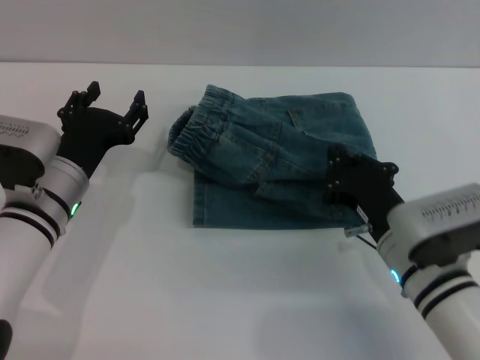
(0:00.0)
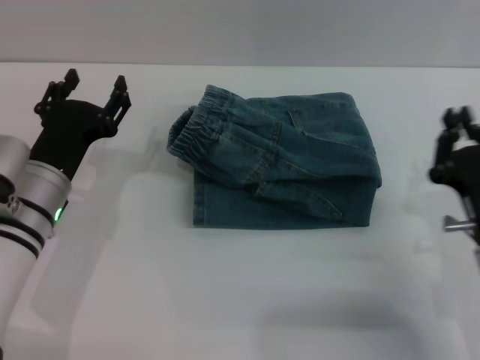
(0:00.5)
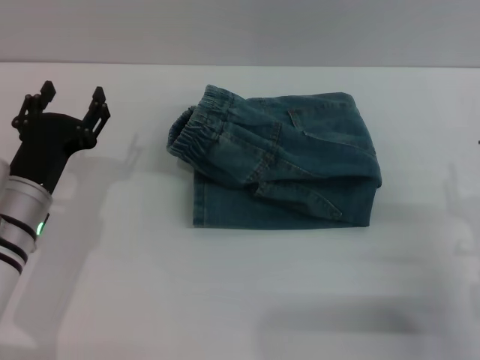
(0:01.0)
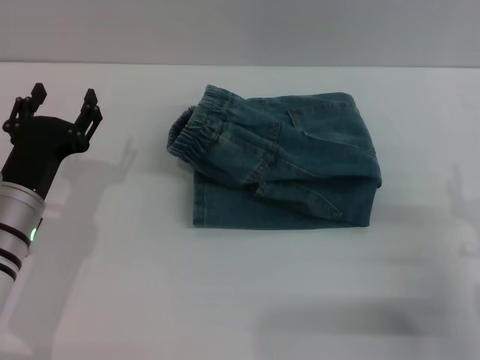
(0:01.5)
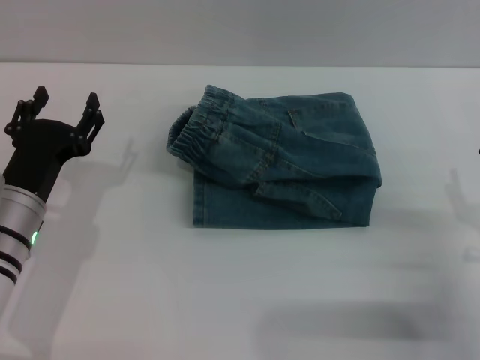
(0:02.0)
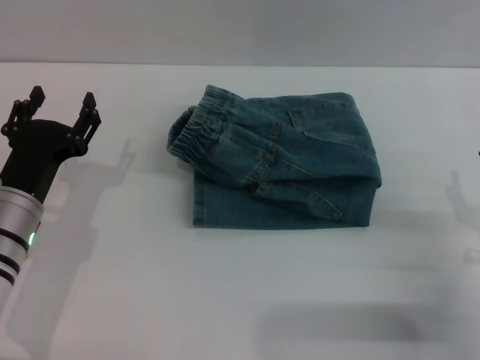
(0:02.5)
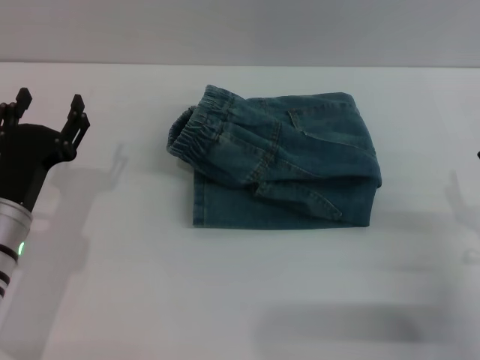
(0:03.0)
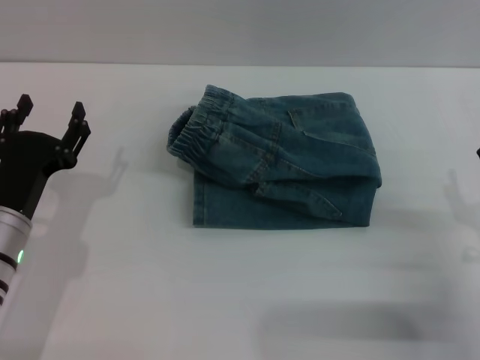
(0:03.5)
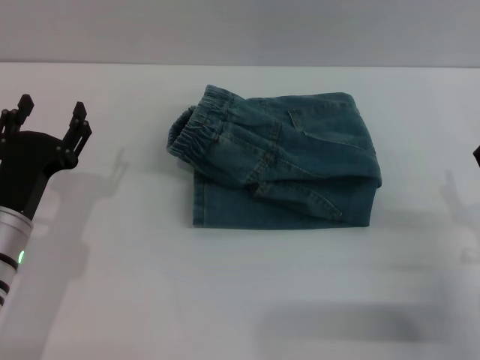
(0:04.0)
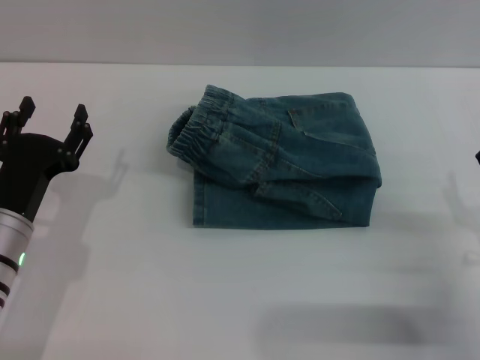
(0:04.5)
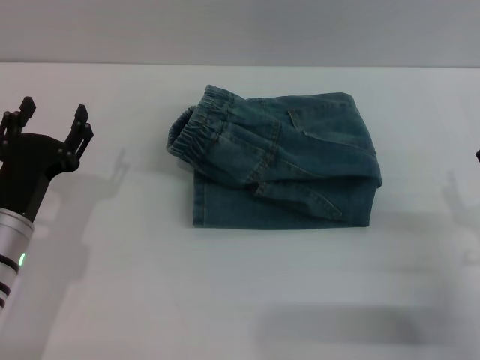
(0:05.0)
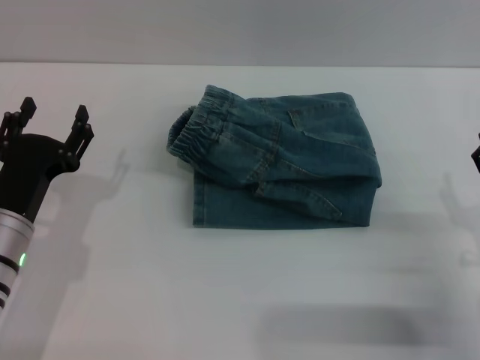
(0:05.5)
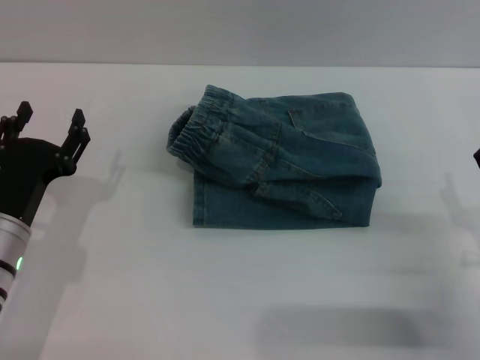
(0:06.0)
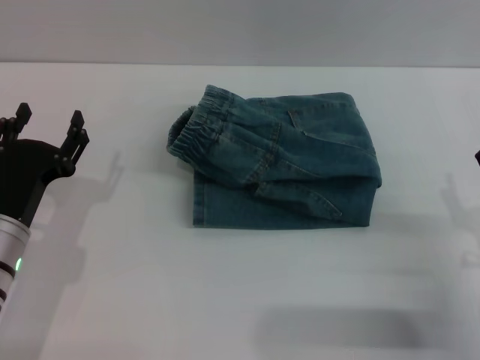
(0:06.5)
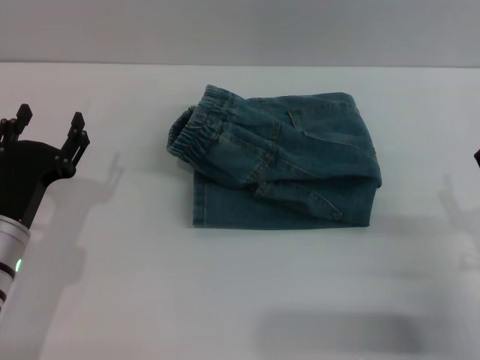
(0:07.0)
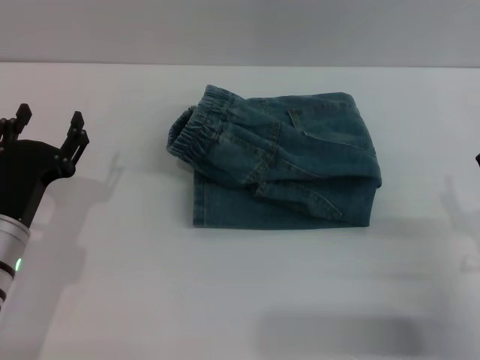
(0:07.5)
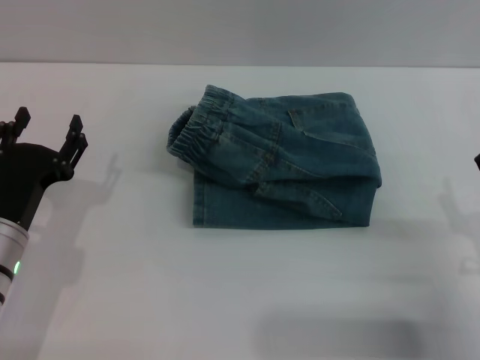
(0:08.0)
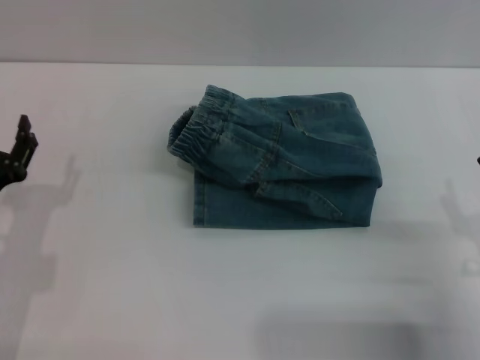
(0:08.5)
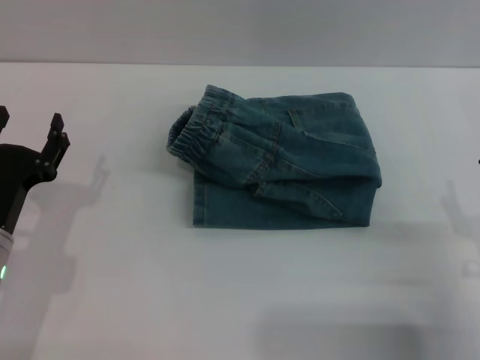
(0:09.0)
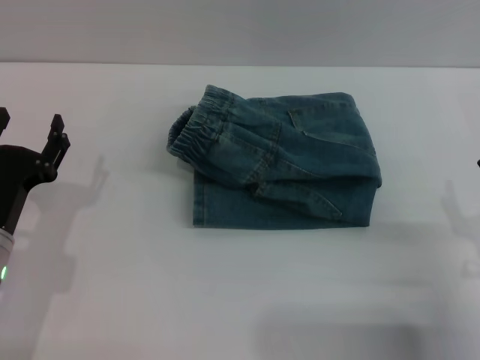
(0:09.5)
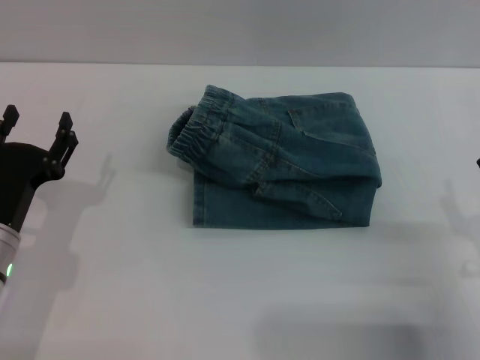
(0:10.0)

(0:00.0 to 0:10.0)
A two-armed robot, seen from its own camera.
0:00.0 - 0:02.0: The right gripper travels to the right by roughly 10 cm, and opens.
0:02.0 - 0:04.0: There are only small adjustments of the grippers.
0:04.0 - 0:06.0: The two grippers keep their place.
0:06.0 - 0:08.0: Both grippers stay about where they are.
0:08.0 - 0:10.0: The grippers move only a little.

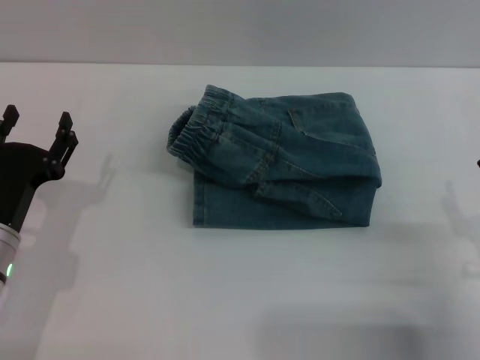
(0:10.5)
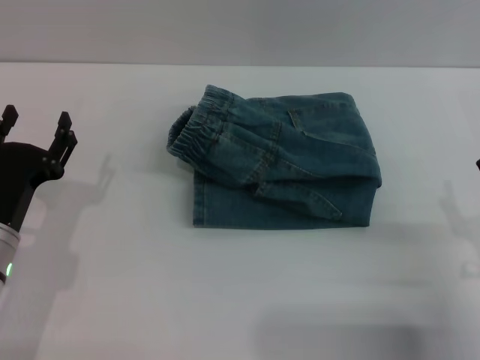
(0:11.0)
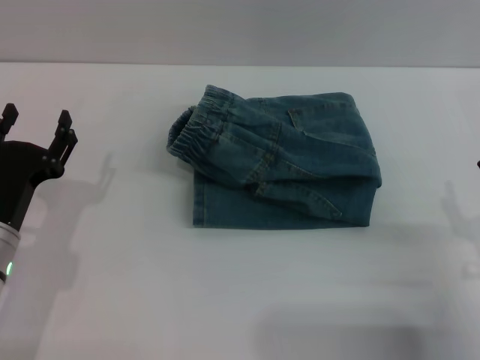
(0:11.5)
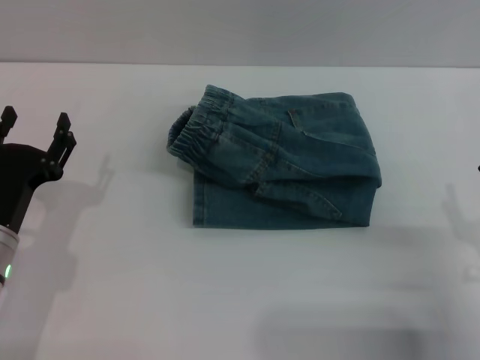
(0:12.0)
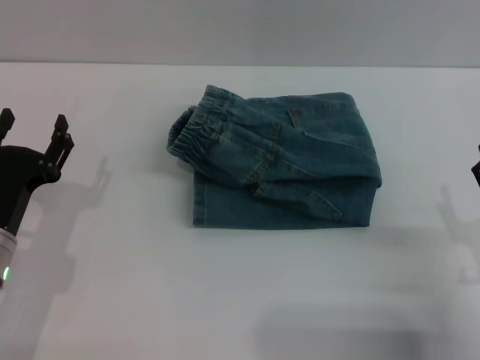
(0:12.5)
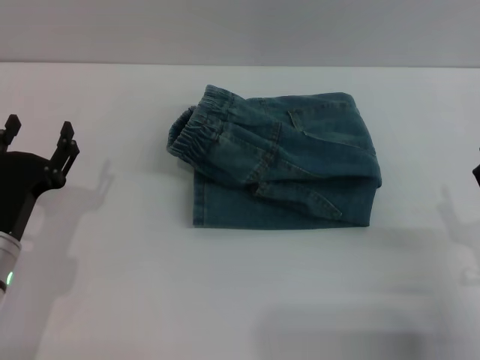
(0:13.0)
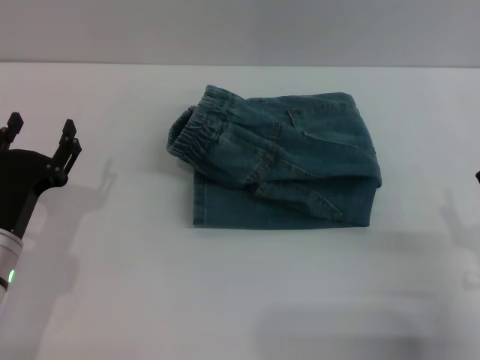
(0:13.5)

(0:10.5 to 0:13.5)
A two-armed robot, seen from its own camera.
0:10.5 - 0:13.5: Both grippers stay about where they are.

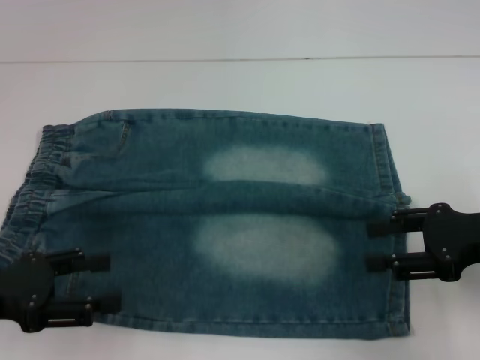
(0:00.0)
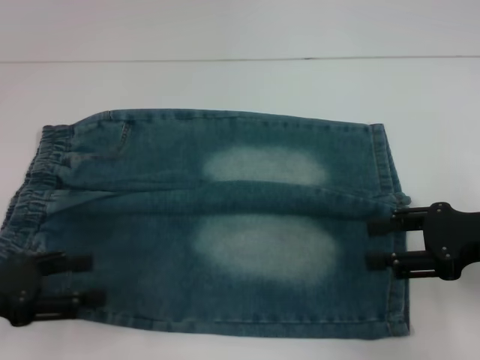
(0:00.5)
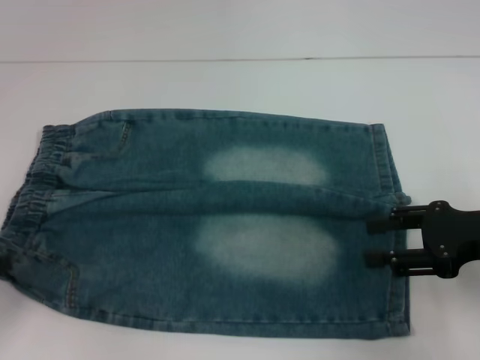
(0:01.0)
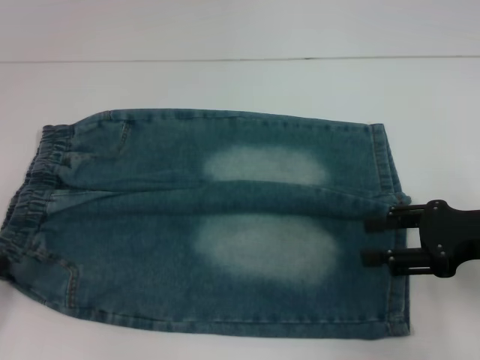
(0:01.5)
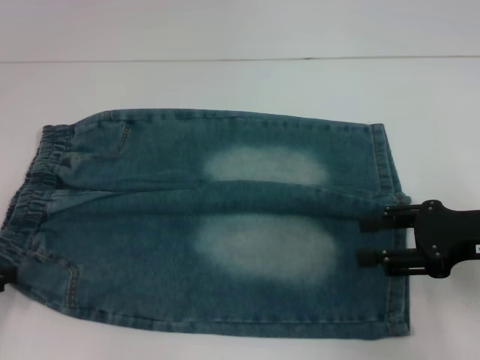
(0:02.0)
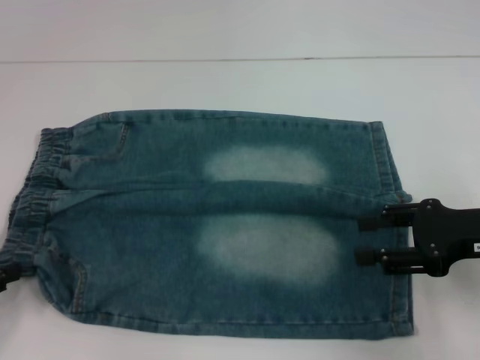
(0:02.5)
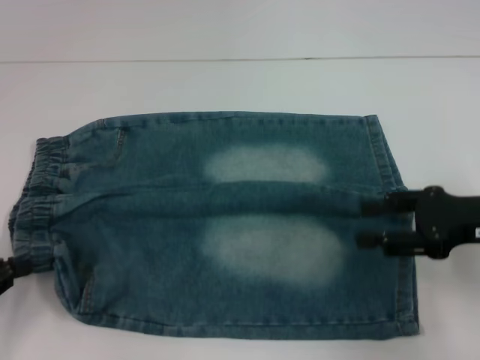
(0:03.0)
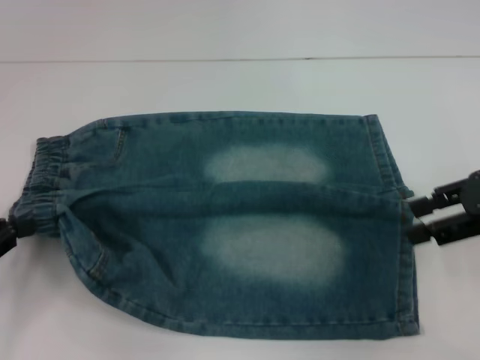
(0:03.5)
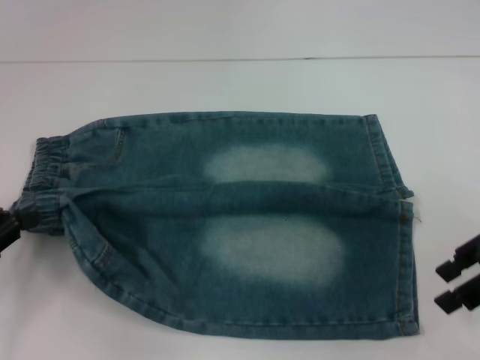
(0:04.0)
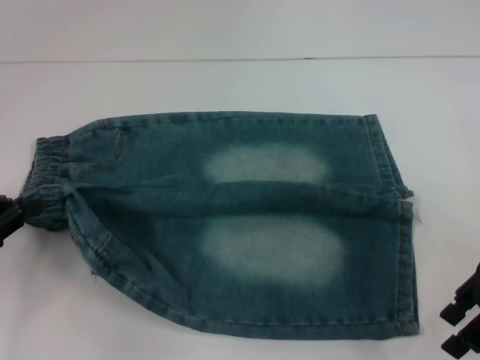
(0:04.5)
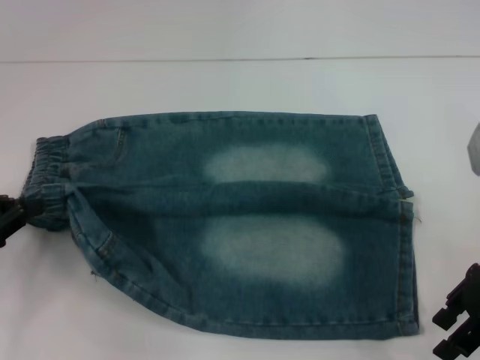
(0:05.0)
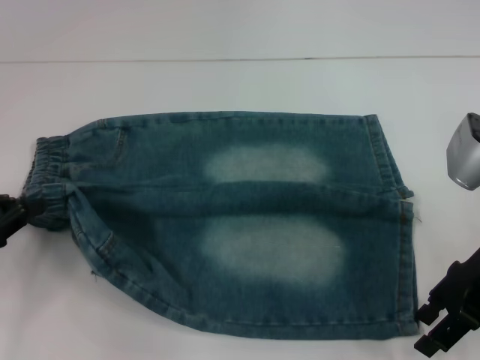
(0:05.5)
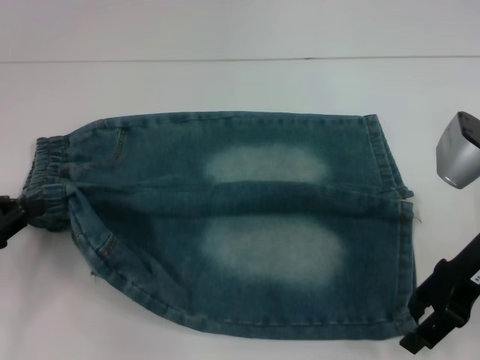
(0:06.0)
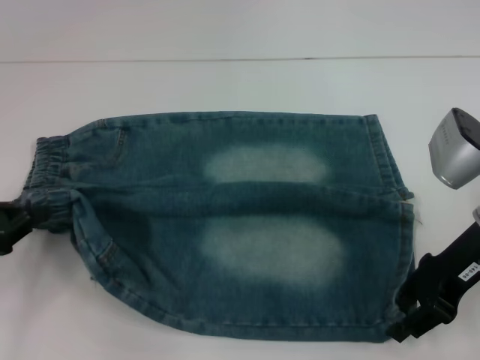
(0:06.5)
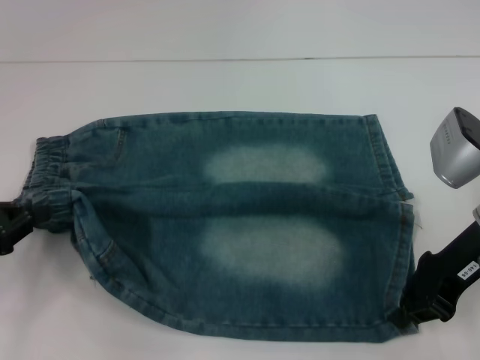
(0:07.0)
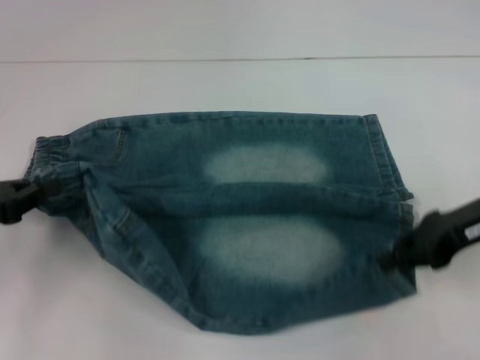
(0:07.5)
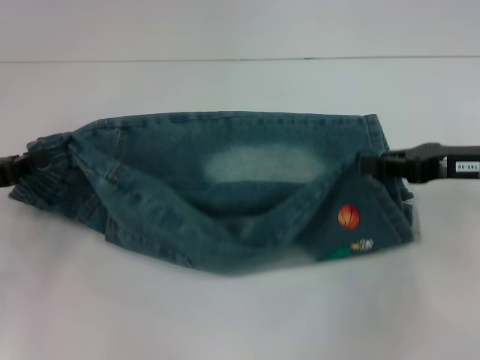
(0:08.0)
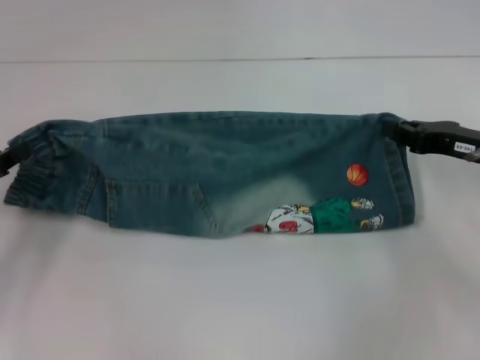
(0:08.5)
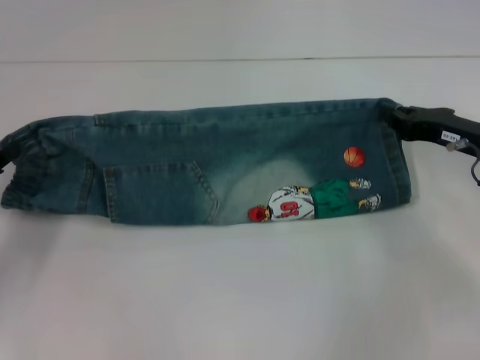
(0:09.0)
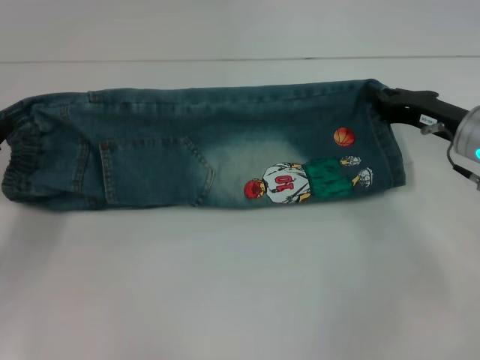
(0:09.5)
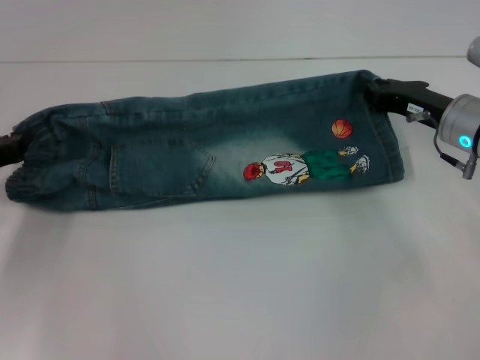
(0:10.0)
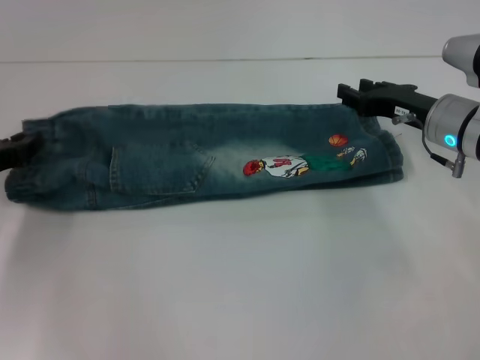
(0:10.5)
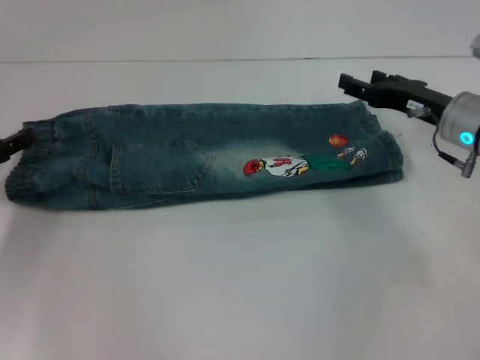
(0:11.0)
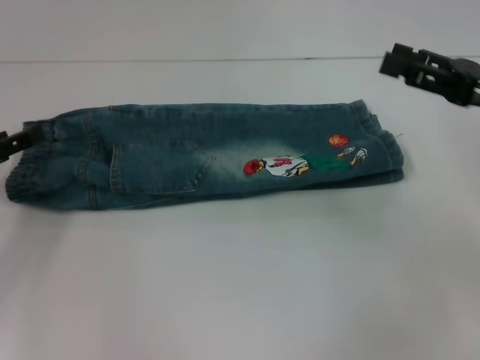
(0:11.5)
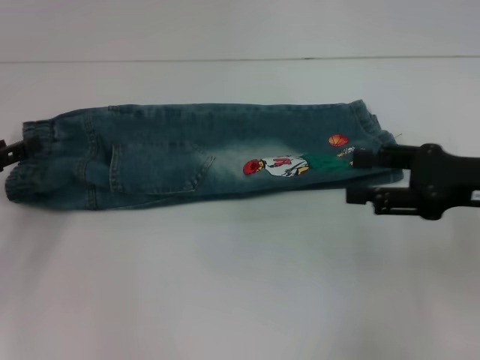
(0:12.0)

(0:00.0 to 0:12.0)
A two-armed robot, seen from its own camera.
Step, 0:00.0 - 0:02.5: Hold the lower left waistband with your left hand.
Step, 0:03.0 - 0:07.0: Grab the lower right pant leg with your right hand.
Step, 0:07.5 - 0:10.0: Fold upward with your right hand.
0:00.0 - 0:02.0: The left gripper travels to the left by some 10 cm.
0:02.0 - 0:04.0: The right gripper moves upward, some 5 cm, while the left gripper moves roughly 5 cm, and closes up.
0:04.0 - 0:06.0: The right gripper heads to the left, covering roughly 5 cm.
0:06.0 - 0:08.0: The right gripper closes up.
0:08.0 - 0:10.0: The right gripper goes some 5 cm forward.
0:10.0 - 0:12.0: The right gripper goes roughly 10 cm backward and upward, and opens, while the left gripper opens its fingers.
